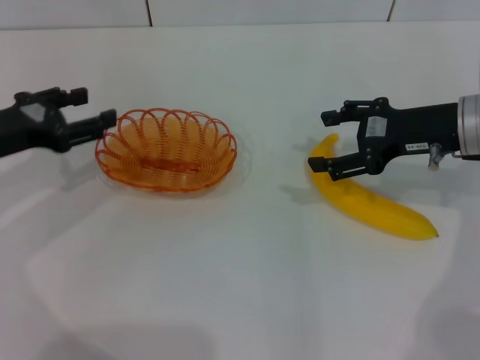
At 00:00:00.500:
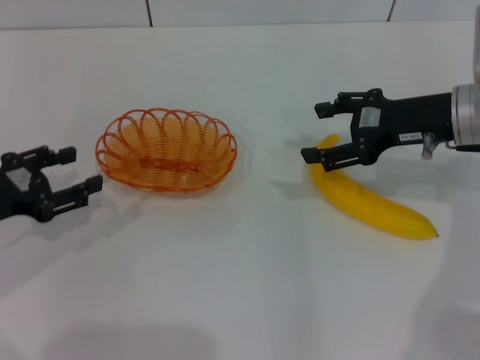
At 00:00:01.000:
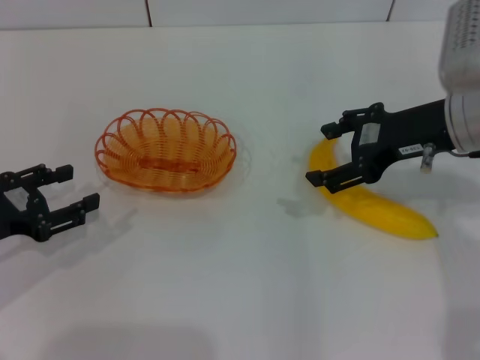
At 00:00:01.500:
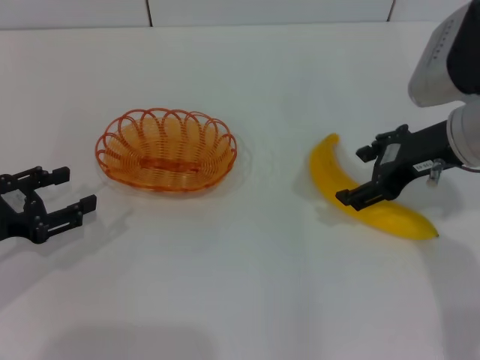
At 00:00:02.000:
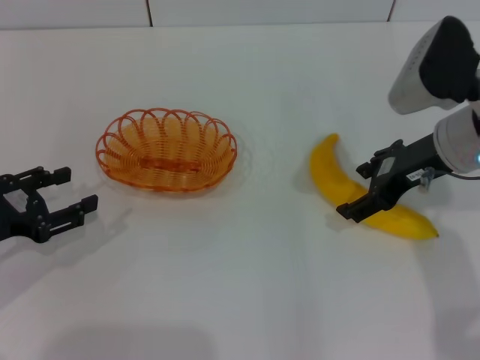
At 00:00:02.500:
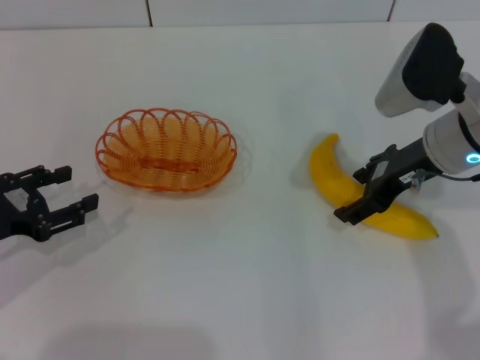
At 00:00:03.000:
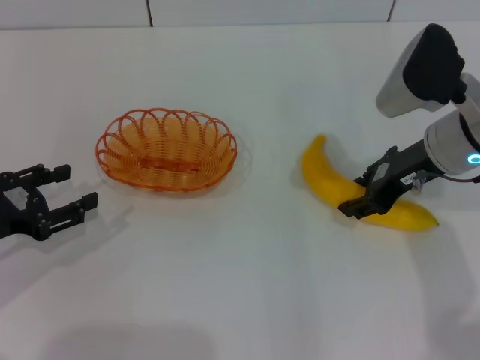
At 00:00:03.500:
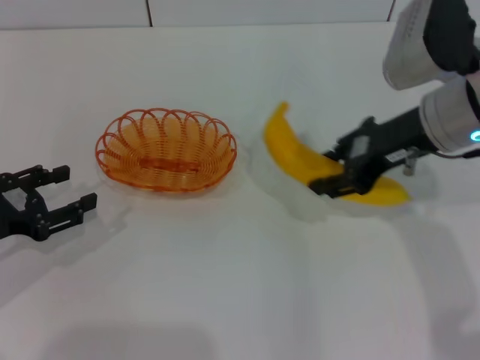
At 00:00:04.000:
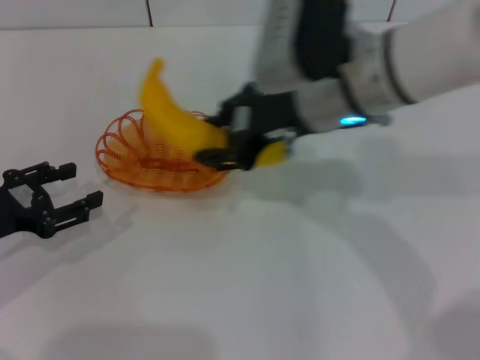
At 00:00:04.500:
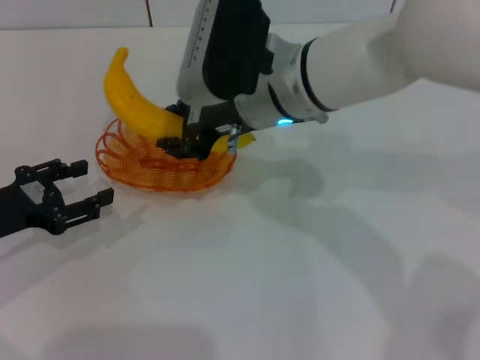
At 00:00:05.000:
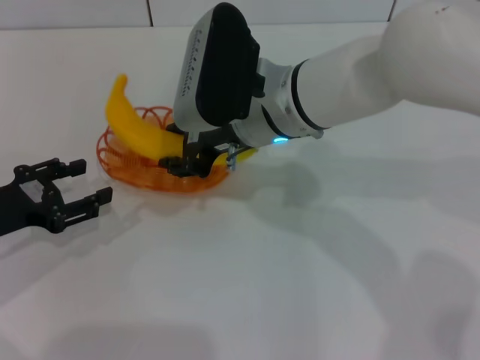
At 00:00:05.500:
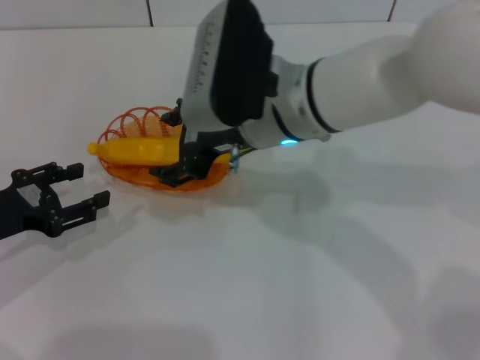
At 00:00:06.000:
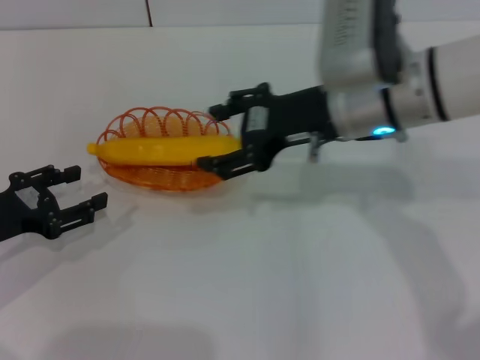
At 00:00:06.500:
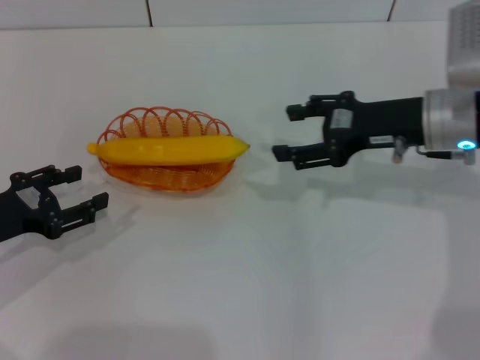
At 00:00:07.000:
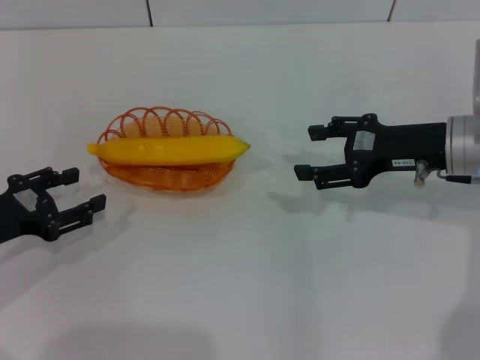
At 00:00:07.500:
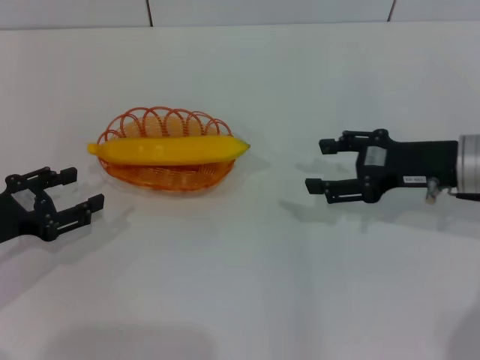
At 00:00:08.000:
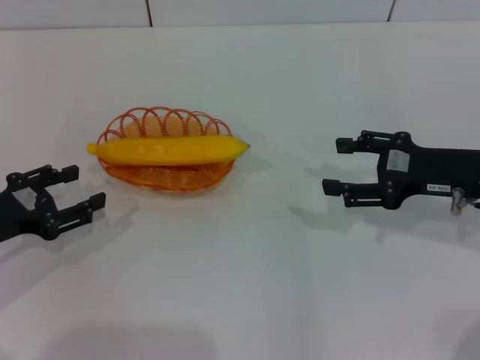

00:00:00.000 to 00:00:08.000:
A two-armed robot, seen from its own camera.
Step, 00:00:00.000 to 00:00:03.000: Pick up the banana with the right gripper.
Step, 00:00:03.500 to 00:00:05.000: Place the banana into the basket with the right gripper.
00:00:00.000 to 00:00:02.000: The left gripper is displaced backward and downward by approximately 10 cm.
00:00:02.000 to 00:00:04.000: The right gripper is displaced to the left by approximately 15 cm, and closes.
00:00:04.000 to 00:00:06.000: The right gripper opens.
00:00:06.000 to 00:00:08.000: The right gripper travels to the right and downward by roughly 15 cm.
